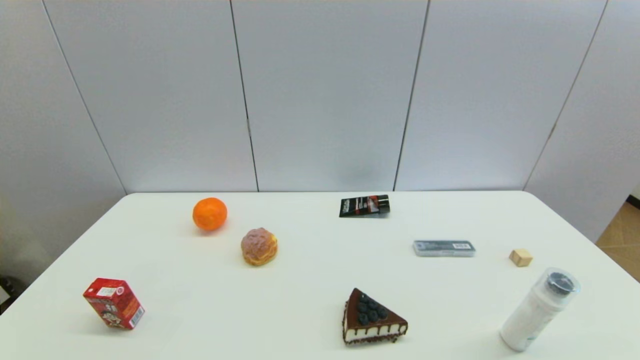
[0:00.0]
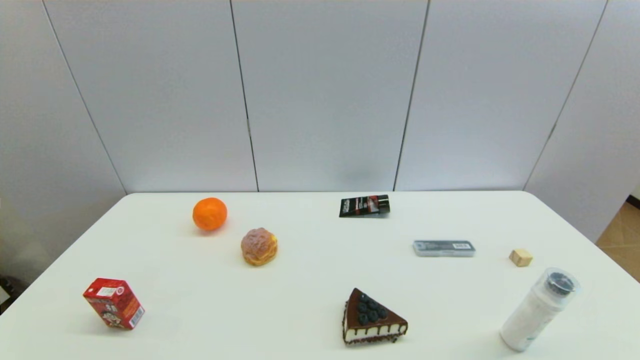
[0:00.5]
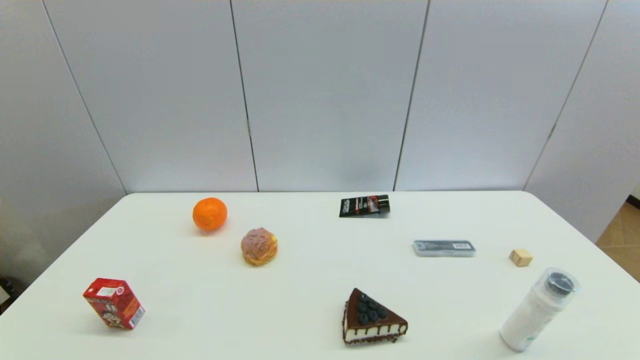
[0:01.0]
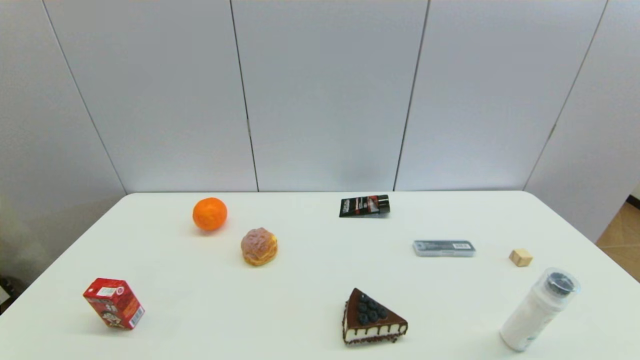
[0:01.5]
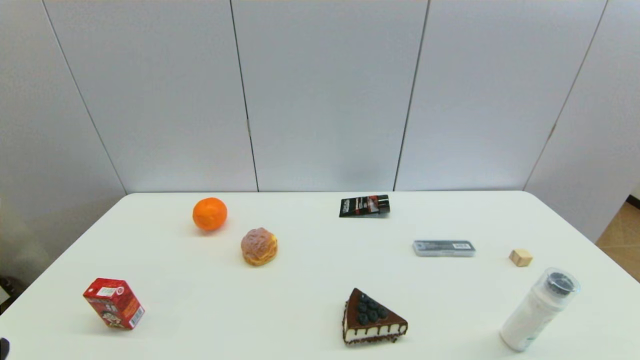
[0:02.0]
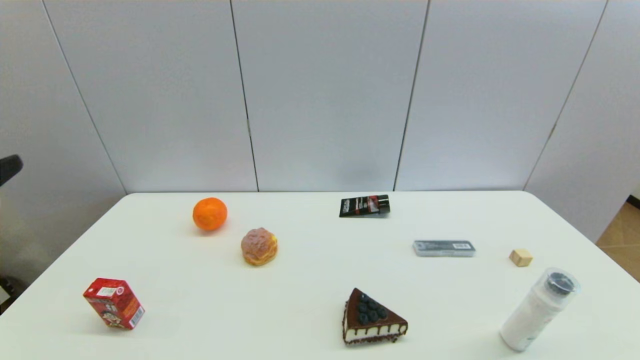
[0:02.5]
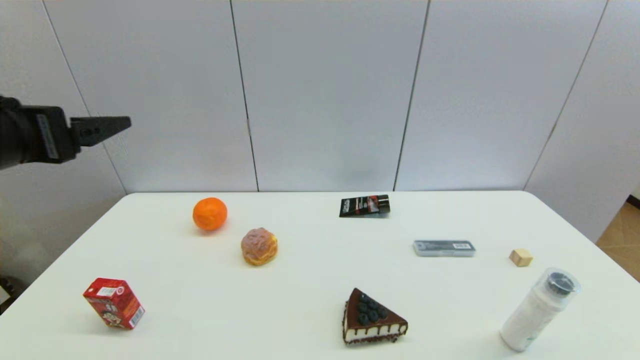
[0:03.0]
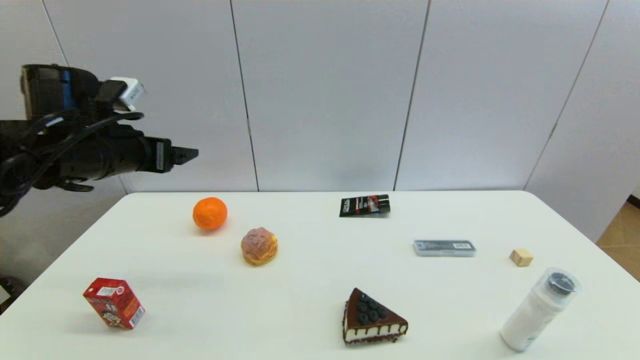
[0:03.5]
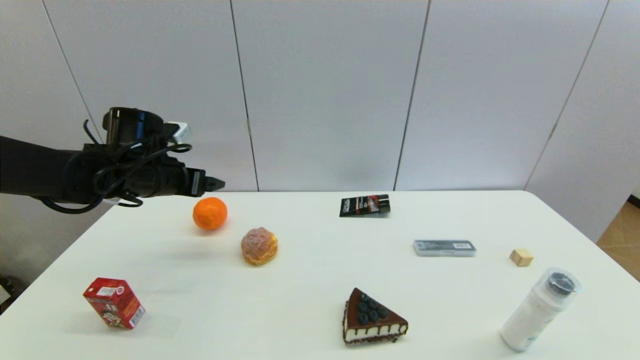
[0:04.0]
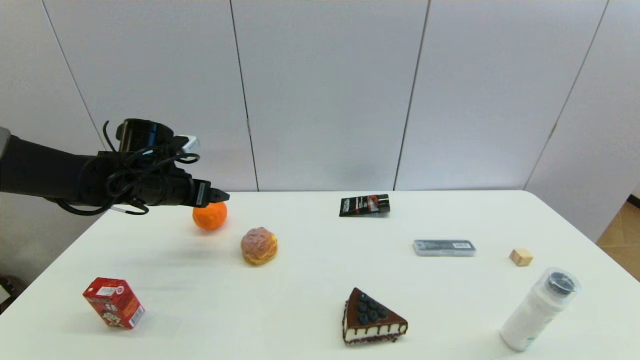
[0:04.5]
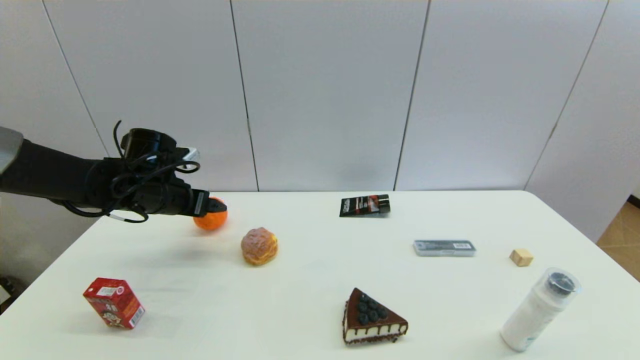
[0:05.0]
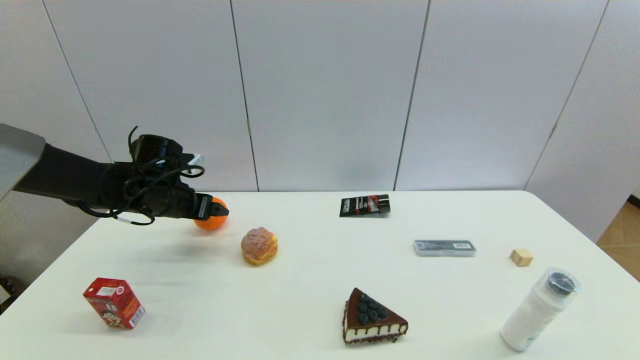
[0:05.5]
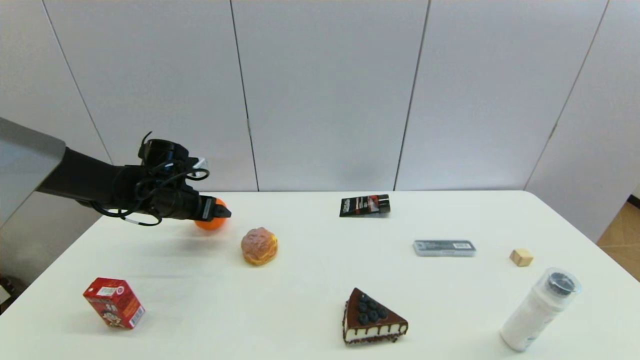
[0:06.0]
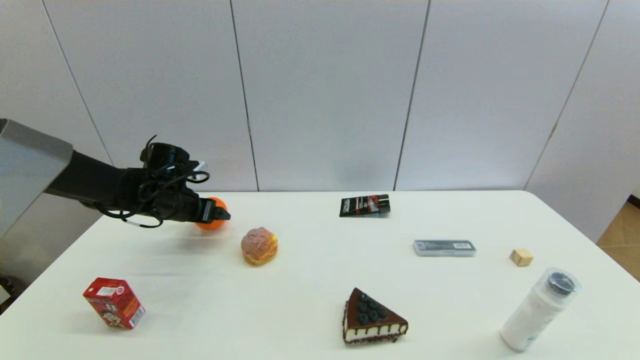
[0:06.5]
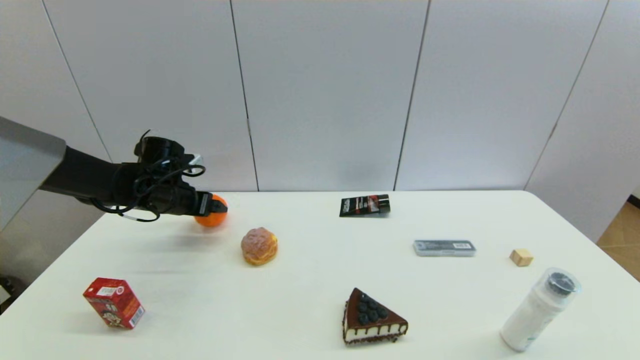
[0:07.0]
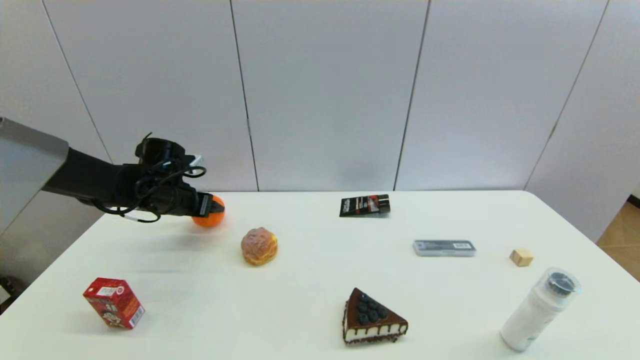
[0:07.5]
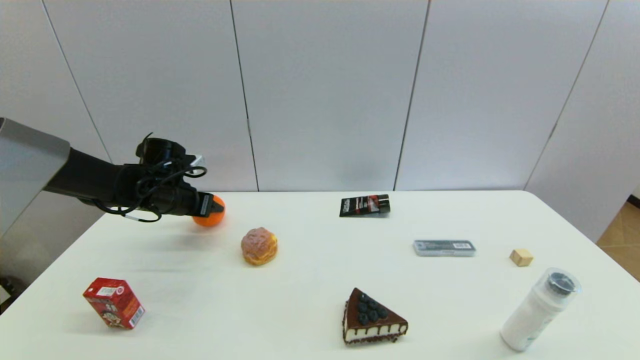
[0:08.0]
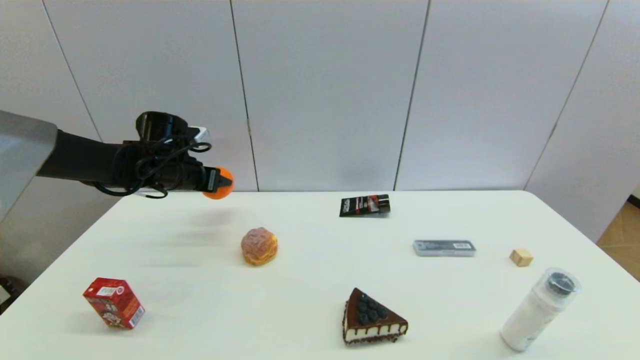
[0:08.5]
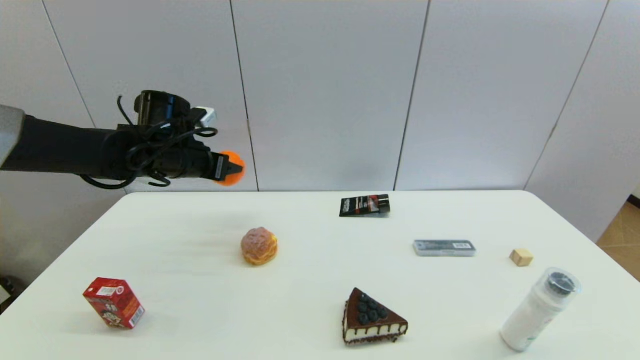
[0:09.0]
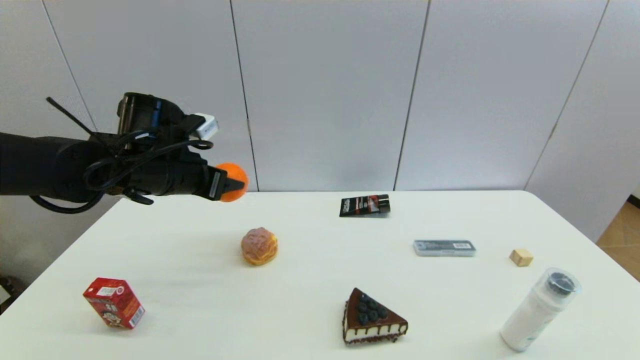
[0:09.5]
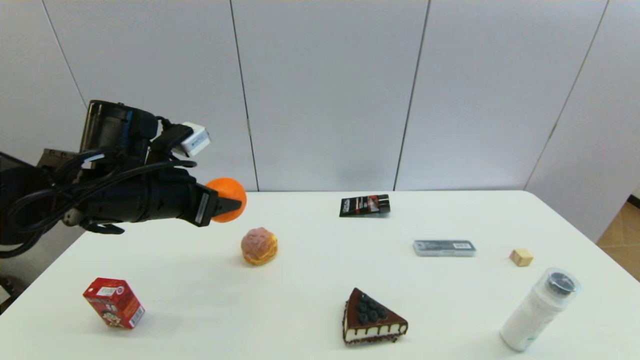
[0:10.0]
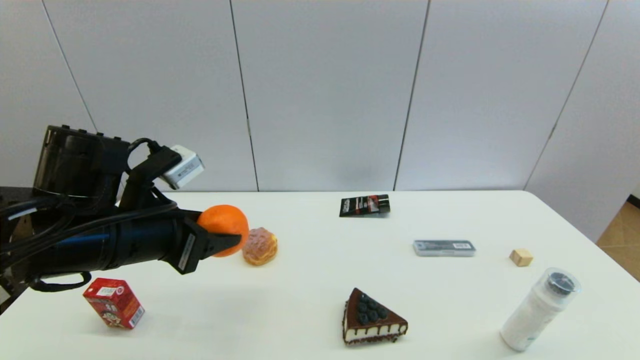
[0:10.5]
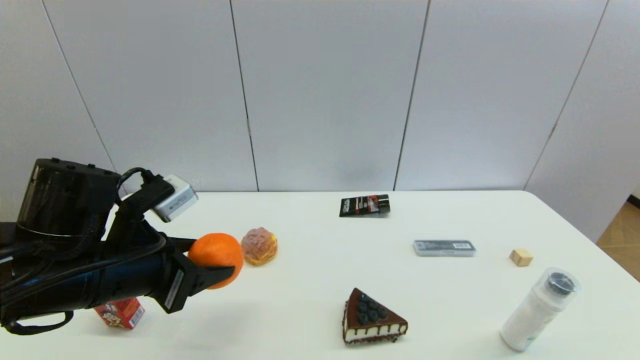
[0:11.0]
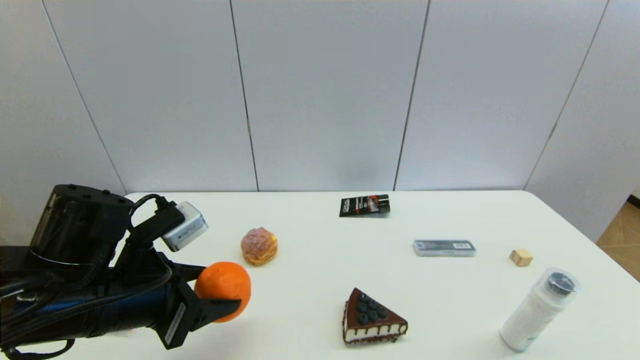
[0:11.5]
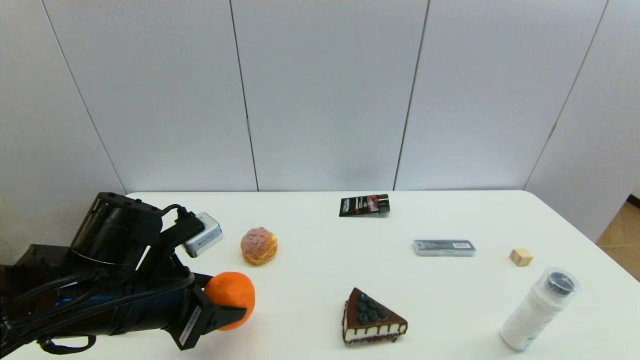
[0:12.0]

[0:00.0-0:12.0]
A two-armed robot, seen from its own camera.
Step, 0:02.5 to 0:07.5: Grasp the orange with left gripper.
0:02.0 to 0:04.0: The left gripper shifts about 40 cm forward.
0:04.0 to 0:06.0: The left gripper heads downward, covering about 5 cm.
0:06.0 to 0:08.0: The left gripper closes its fingers.
0:08.0 to 0:10.0: The left gripper heads backward, upward and to the right, covering approximately 20 cm.
0:10.0 to 0:12.0: The left gripper goes some 10 cm backward and downward.

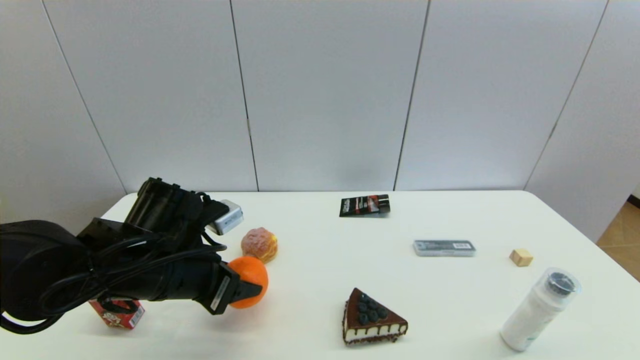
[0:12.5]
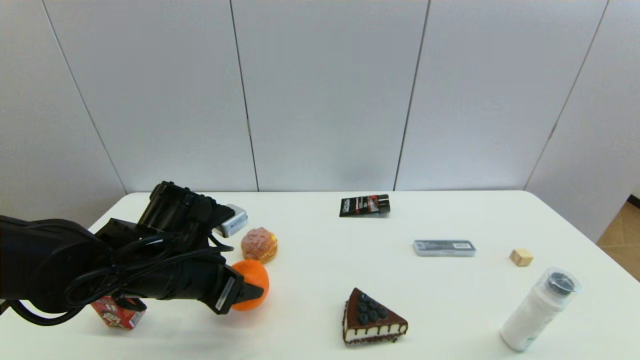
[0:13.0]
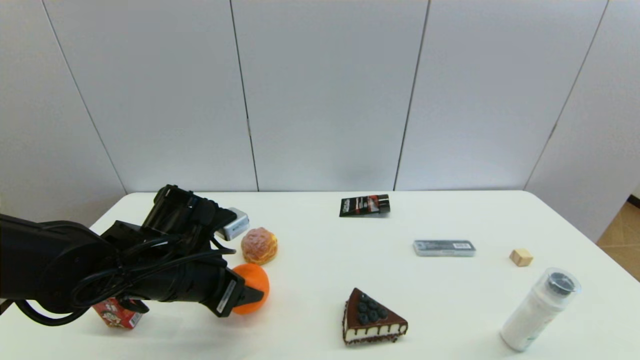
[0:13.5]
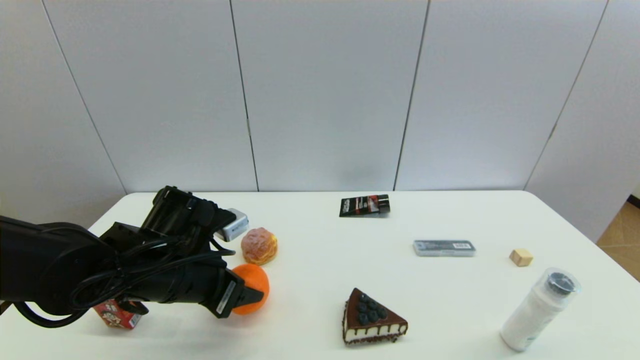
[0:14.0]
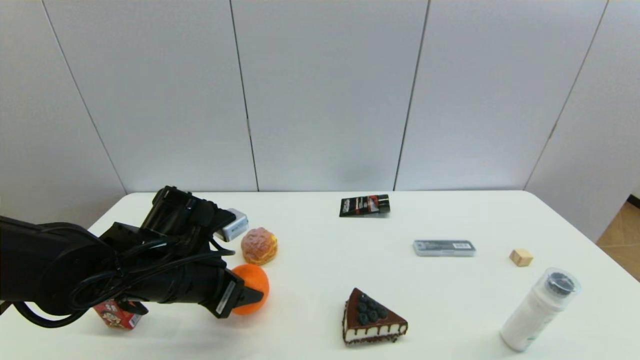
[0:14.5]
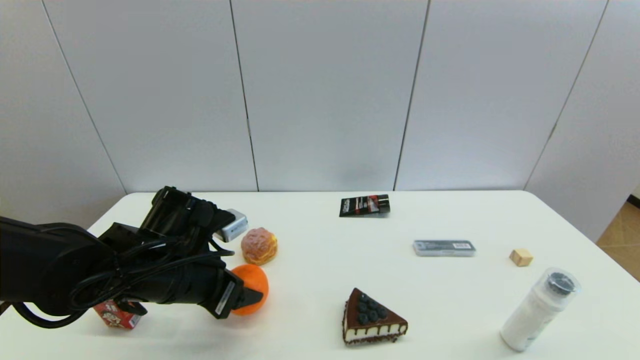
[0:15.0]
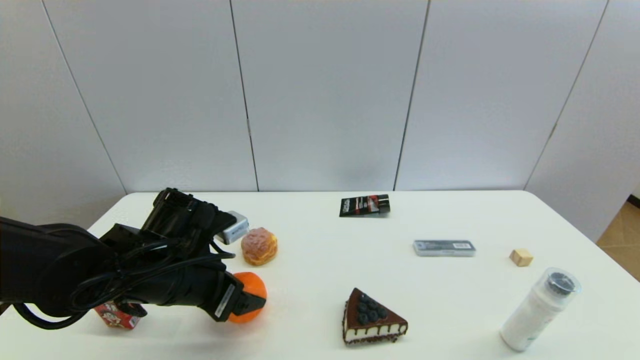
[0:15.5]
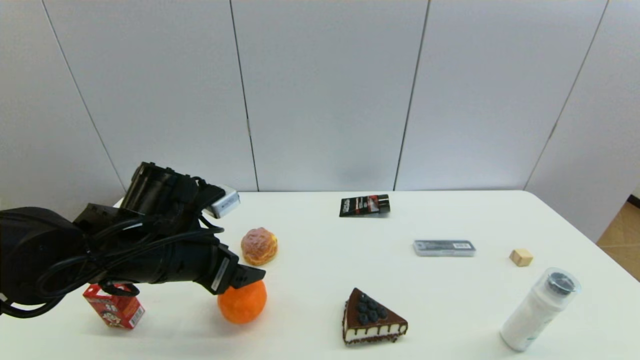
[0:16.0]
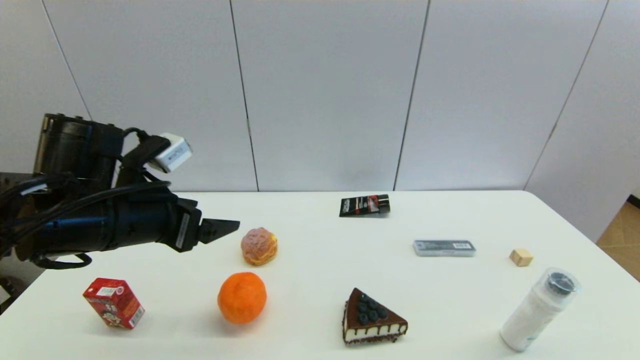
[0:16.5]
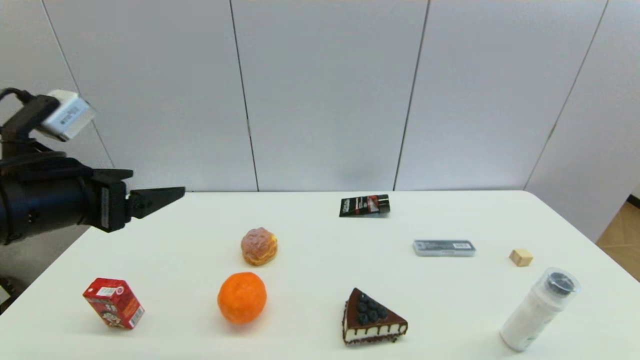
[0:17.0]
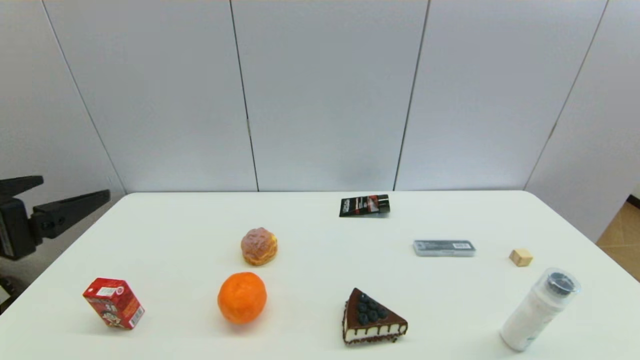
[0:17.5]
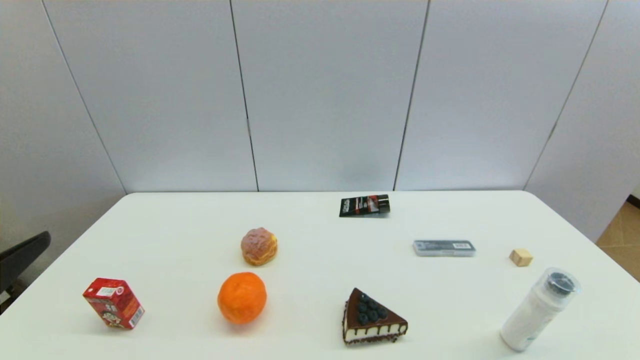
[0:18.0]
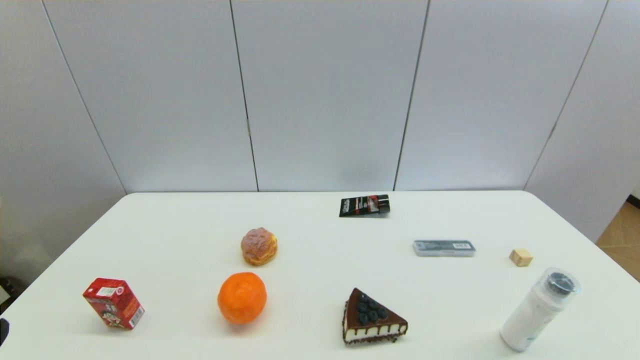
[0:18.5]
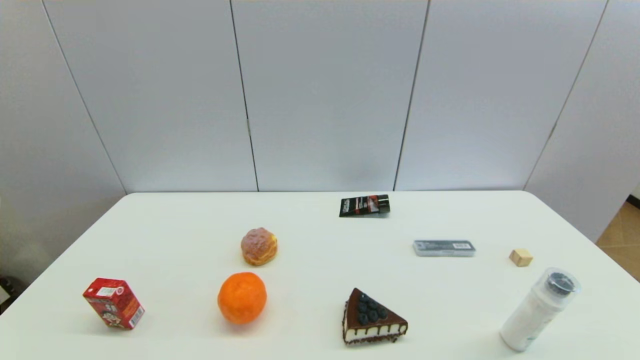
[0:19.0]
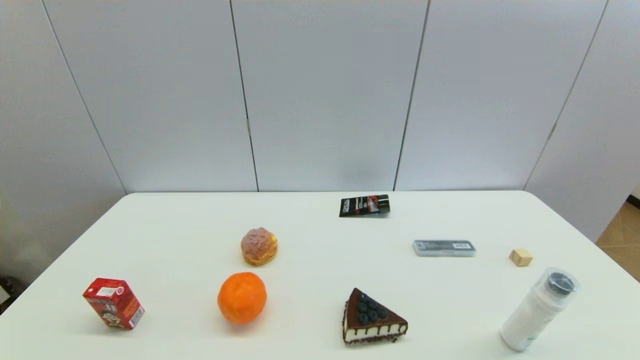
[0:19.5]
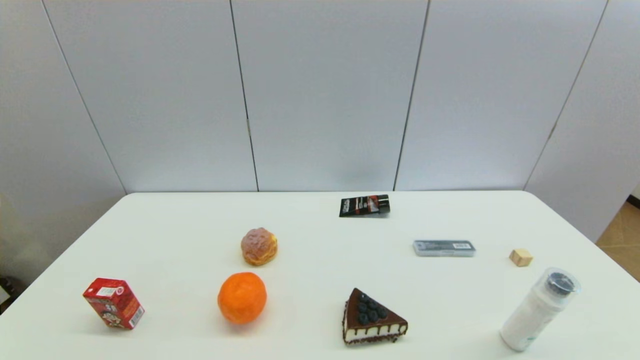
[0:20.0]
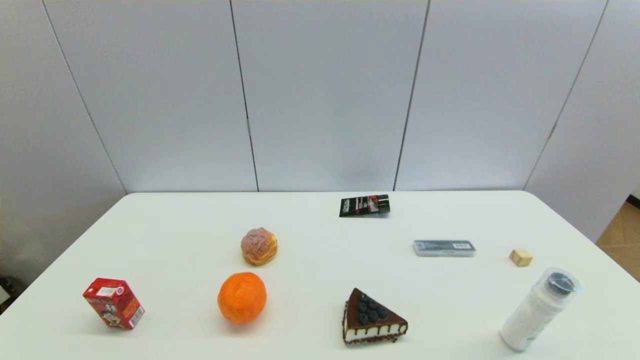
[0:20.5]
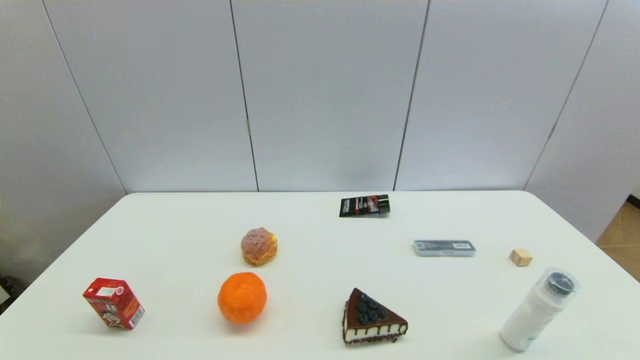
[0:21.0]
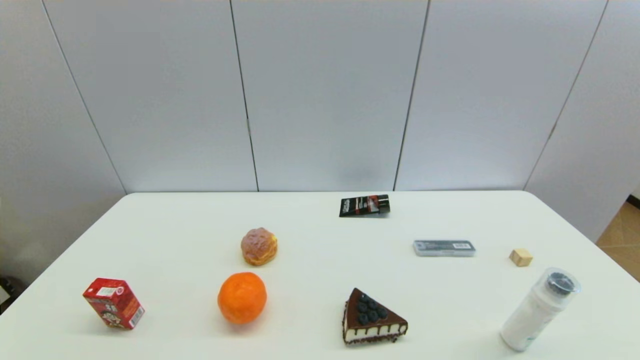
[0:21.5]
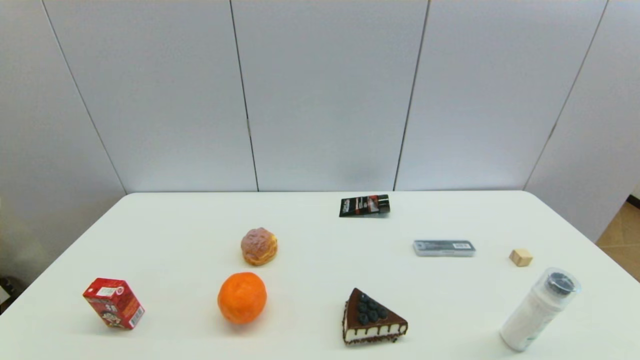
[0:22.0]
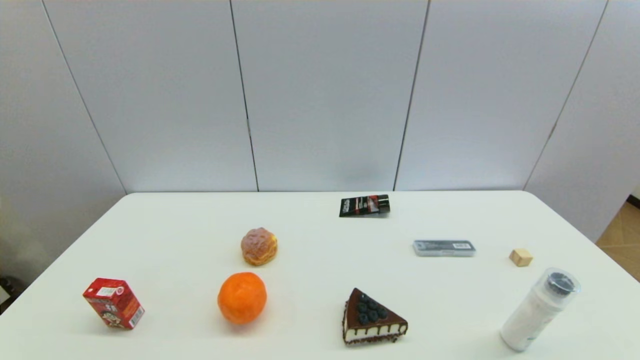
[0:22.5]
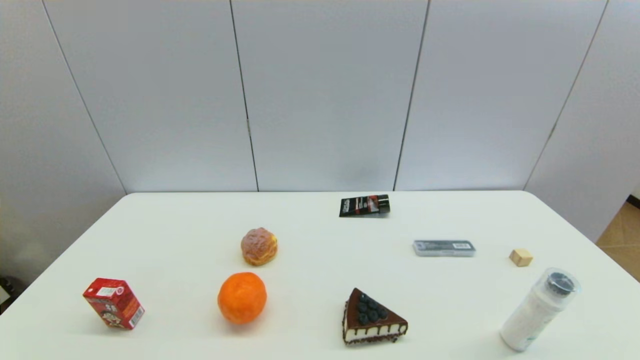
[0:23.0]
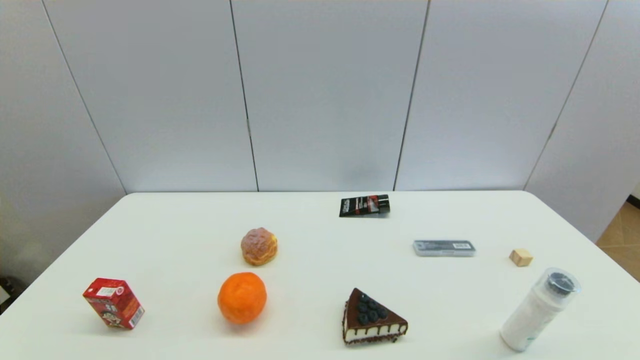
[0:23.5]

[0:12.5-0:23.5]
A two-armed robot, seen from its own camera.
Step, 0:12.5 to 0:15.5: Place the orange on the table with left gripper.
0:12.5 to 0:14.5: The grippers make only small movements.
0:14.5 to 0:16.0: The left gripper opens up.
0:16.0 to 0:18.0: The left gripper heads backward, to the left and upward, covering about 25 cm.
0:21.5 to 0:23.5: The two grippers keep their place.
